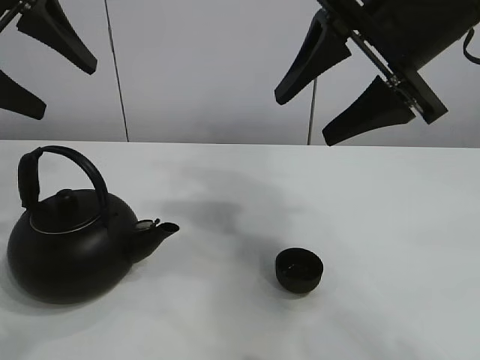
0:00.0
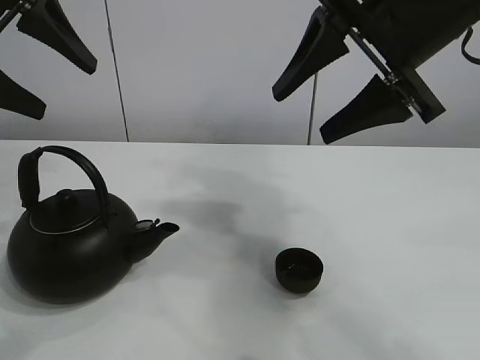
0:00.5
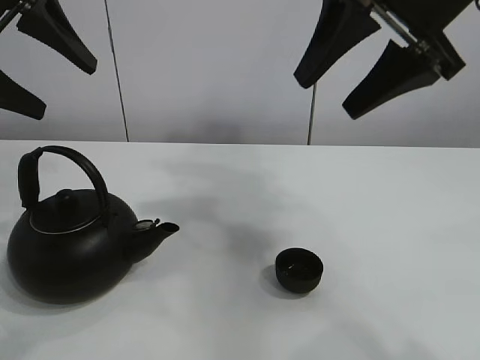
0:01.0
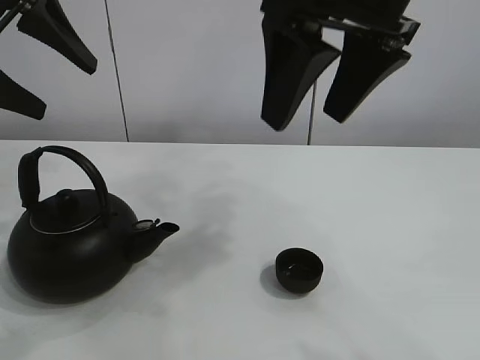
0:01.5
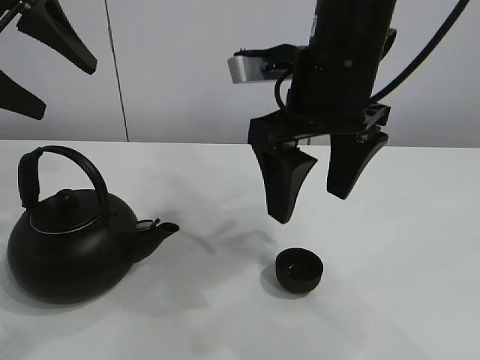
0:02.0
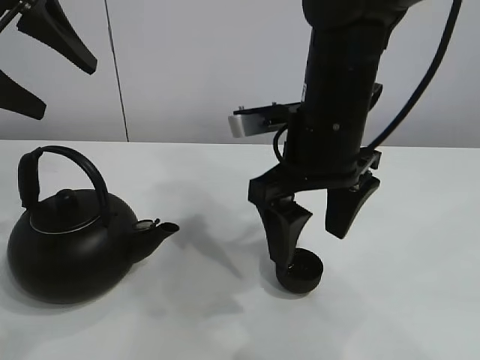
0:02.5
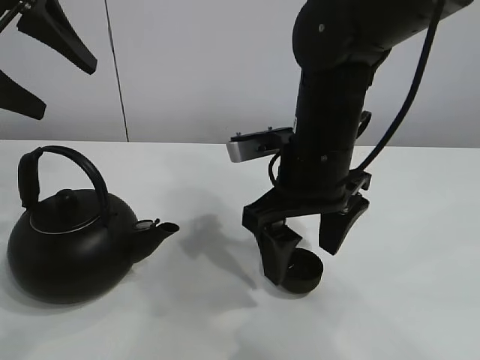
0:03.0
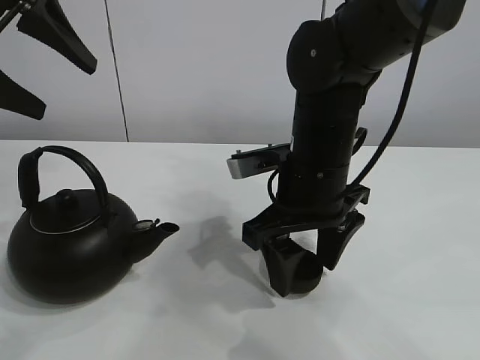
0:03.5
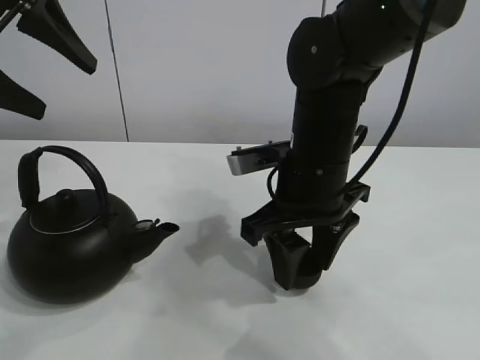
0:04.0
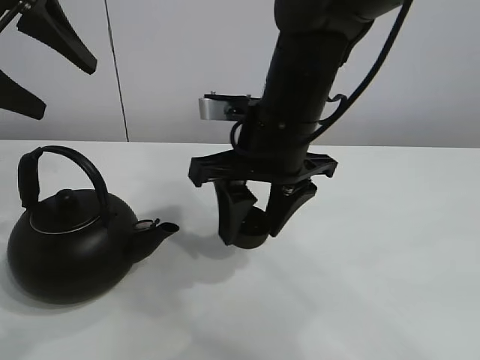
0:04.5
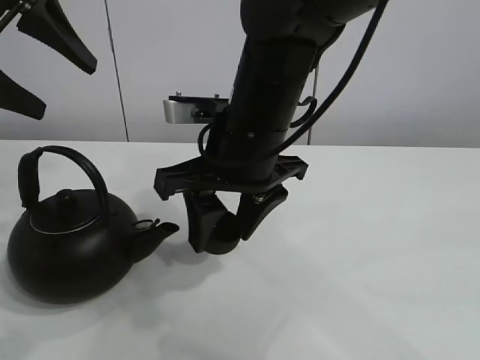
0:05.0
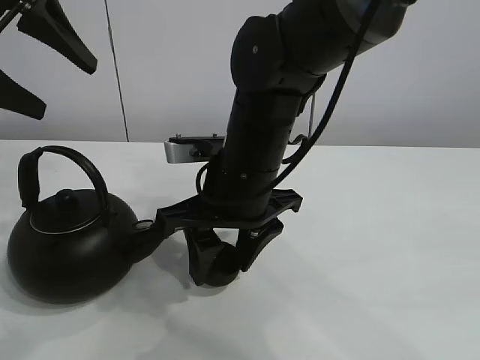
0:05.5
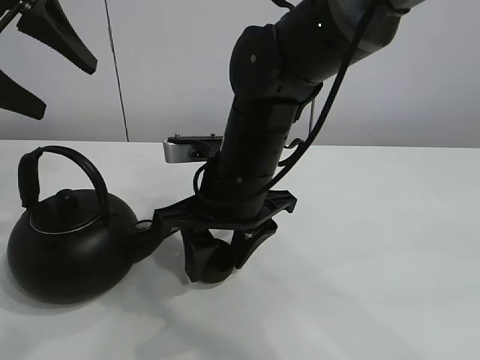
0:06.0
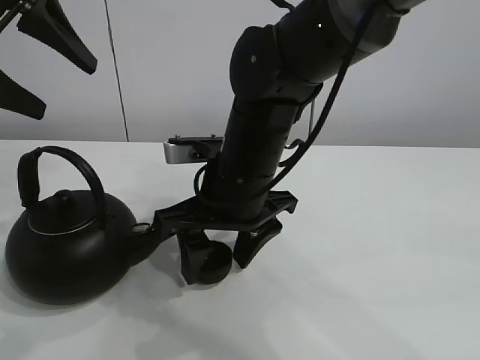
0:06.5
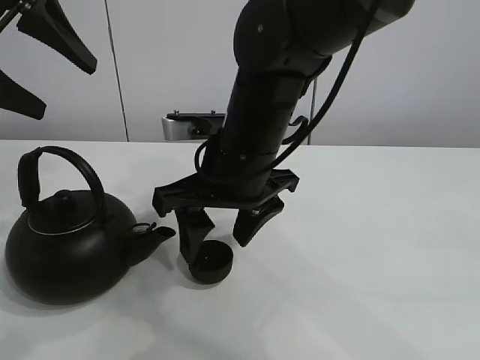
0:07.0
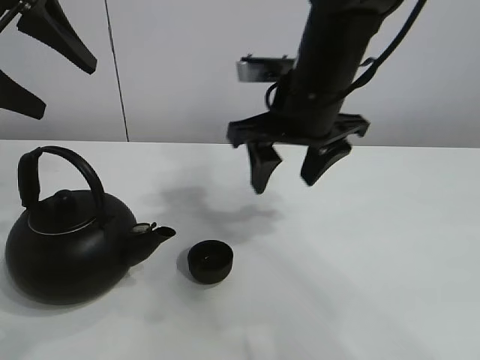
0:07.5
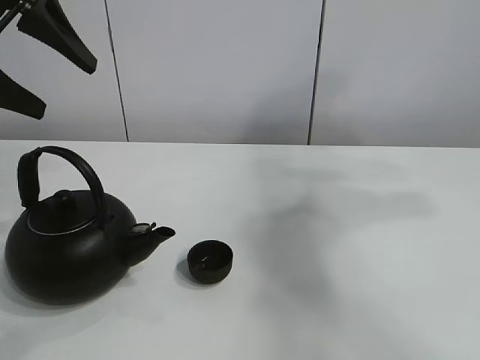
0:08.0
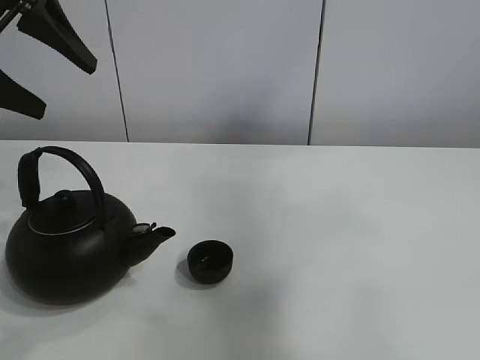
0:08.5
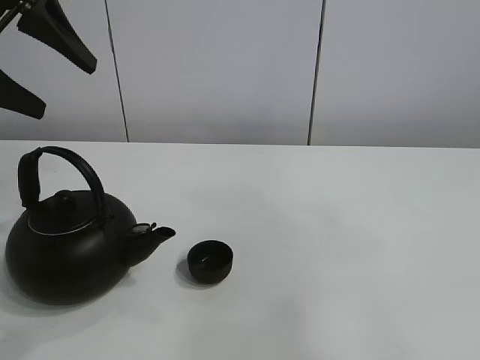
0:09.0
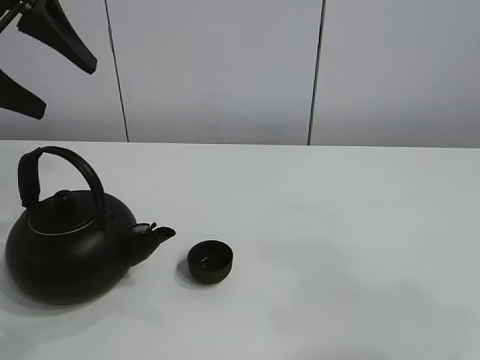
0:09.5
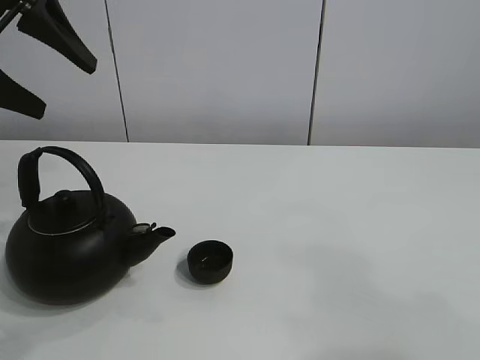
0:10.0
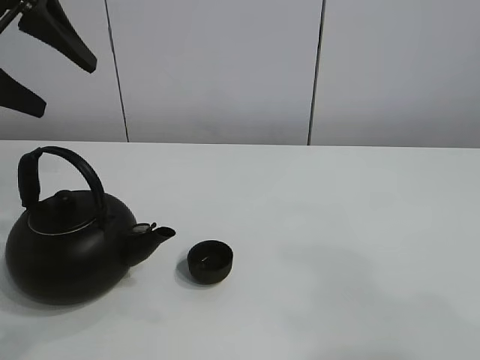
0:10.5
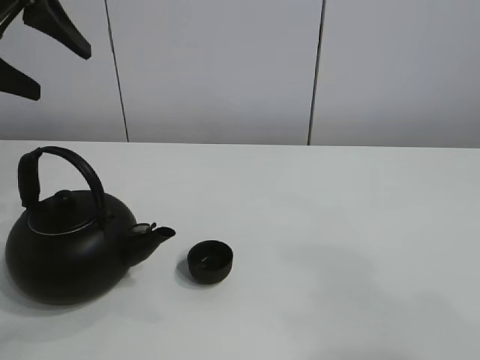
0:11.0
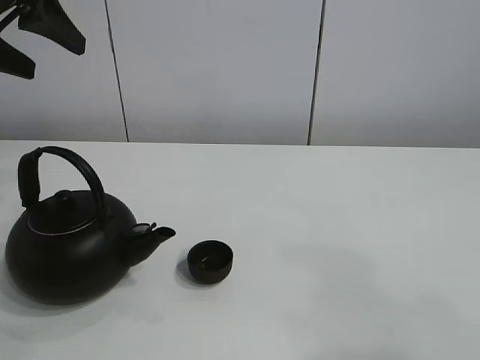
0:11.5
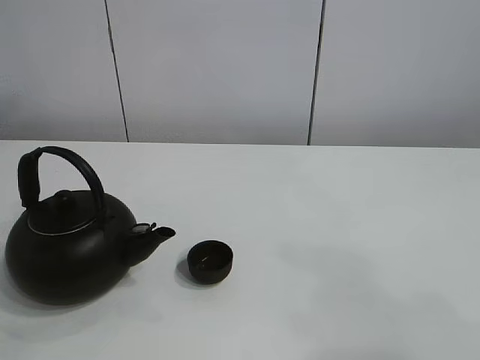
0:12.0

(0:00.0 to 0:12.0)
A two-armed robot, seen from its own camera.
Task of the whole recording: pour tea into the teacup.
Step, 0:00.0 - 0:04.0: Pick up the teacup with the right gripper.
Step, 0:04.5 - 0:06.5: Place the teacup in the center of view with the right gripper.
0:02.0 - 0:04.0: The right gripper travels downward by approximately 10 cm, and closes.
0:04.0 - 0:06.0: The right gripper shifts some 5 cm to the left.
0:06.0 - 0:08.0: The right gripper moves to the right and upward, about 35 cm, and opens its fingers.
0:08.0 - 0:10.0: The right gripper heads backward, covering roughly 35 cm.
0:10.0 - 0:12.0: The left gripper travels upward by some 10 cm.

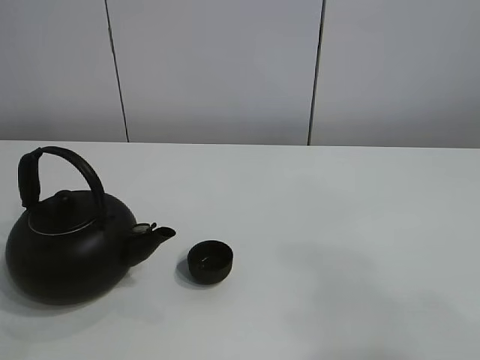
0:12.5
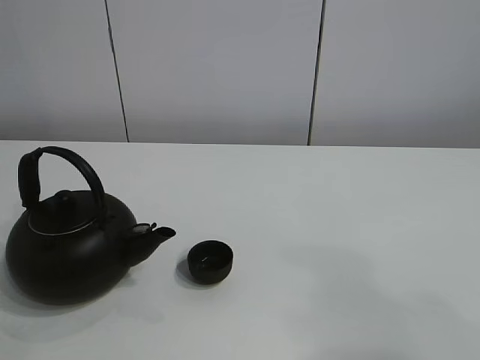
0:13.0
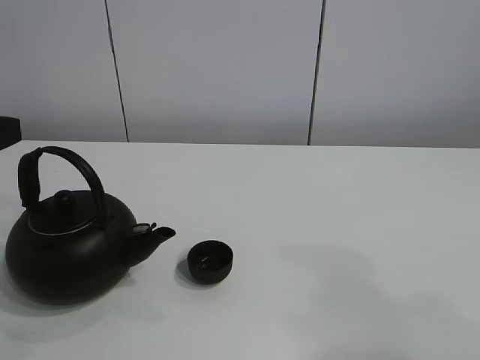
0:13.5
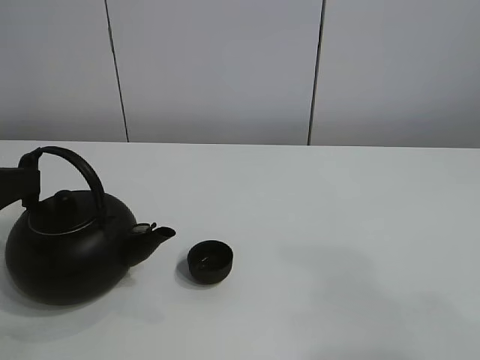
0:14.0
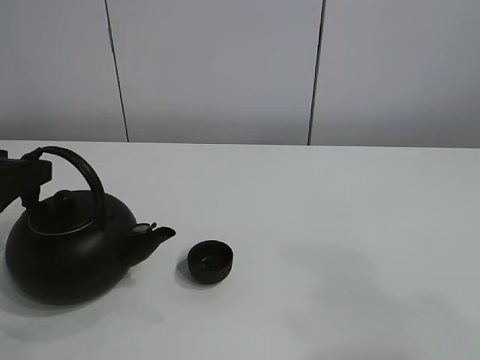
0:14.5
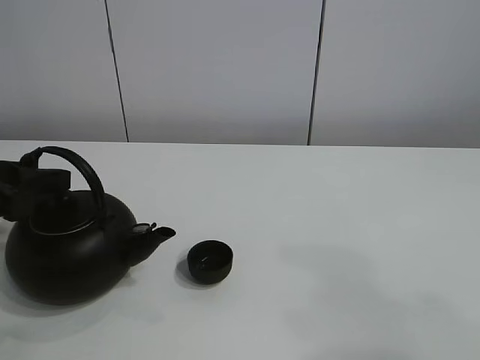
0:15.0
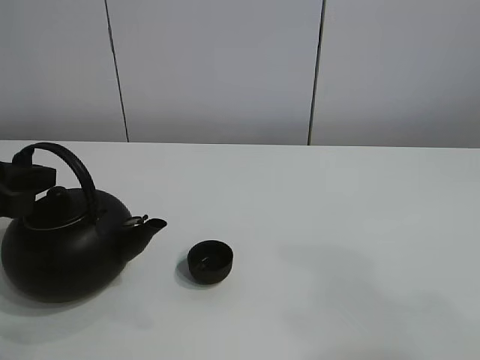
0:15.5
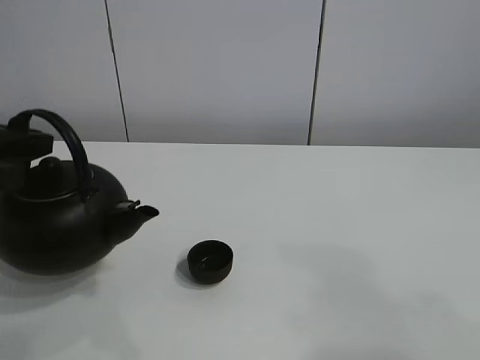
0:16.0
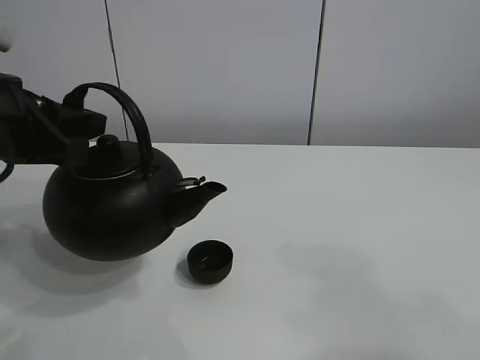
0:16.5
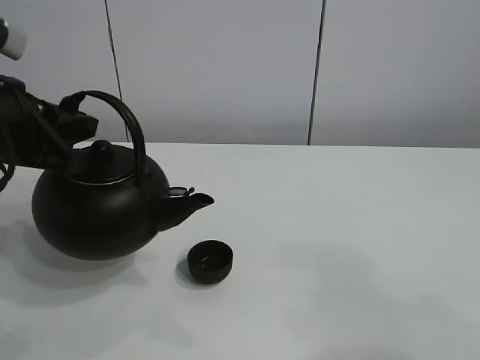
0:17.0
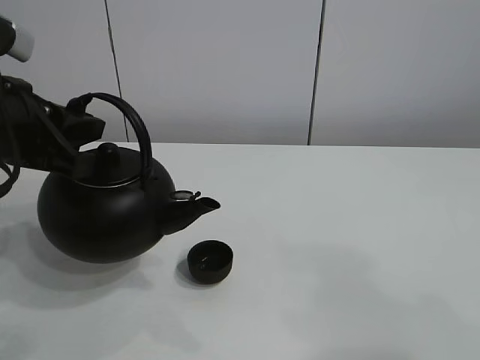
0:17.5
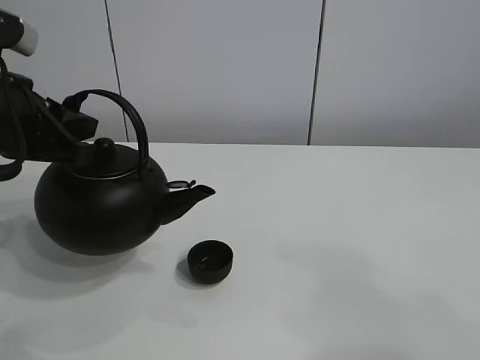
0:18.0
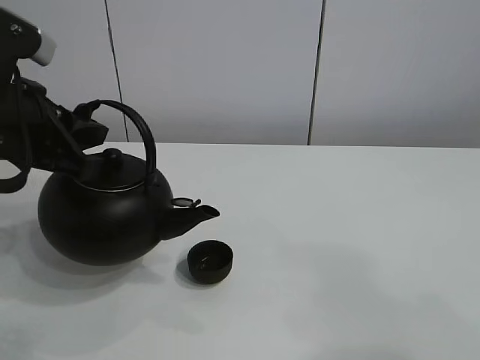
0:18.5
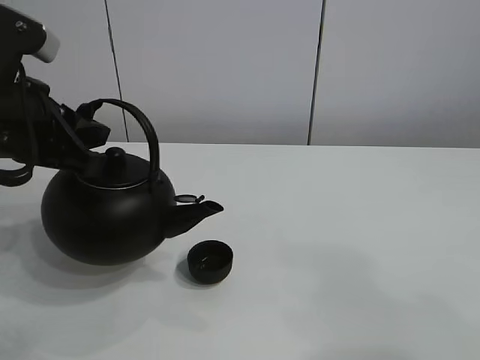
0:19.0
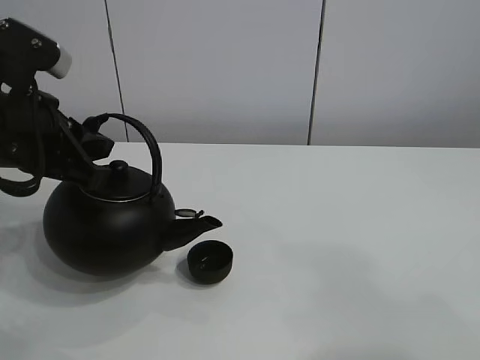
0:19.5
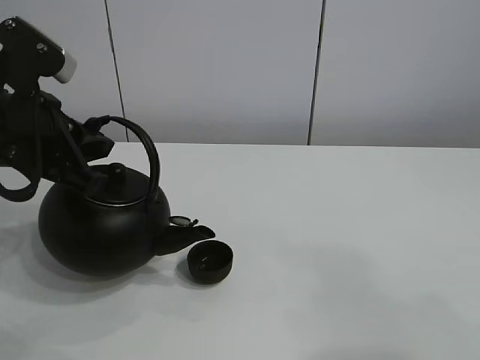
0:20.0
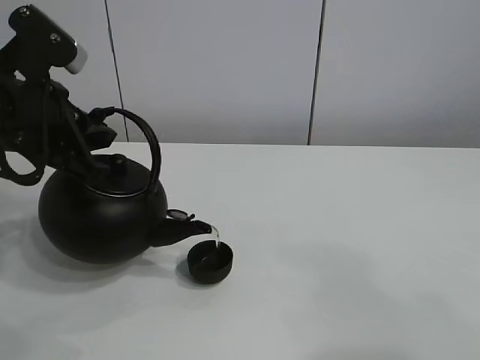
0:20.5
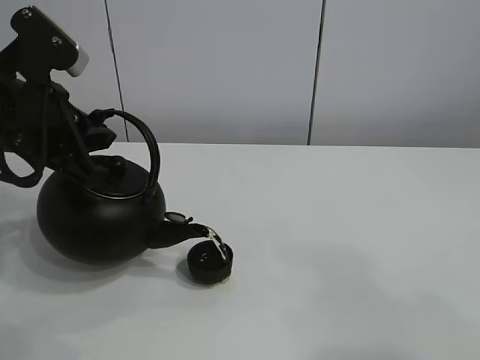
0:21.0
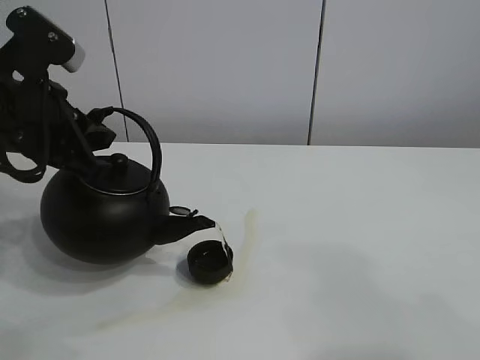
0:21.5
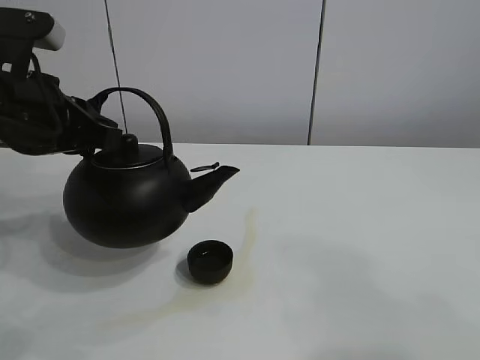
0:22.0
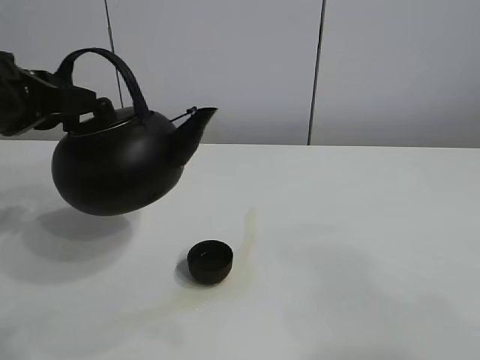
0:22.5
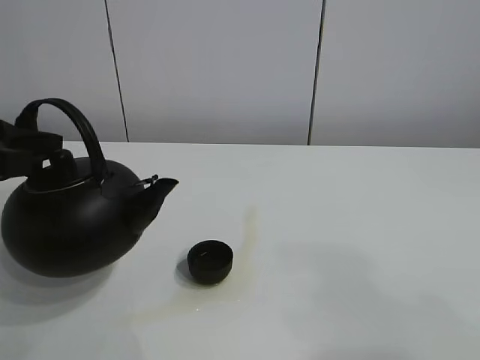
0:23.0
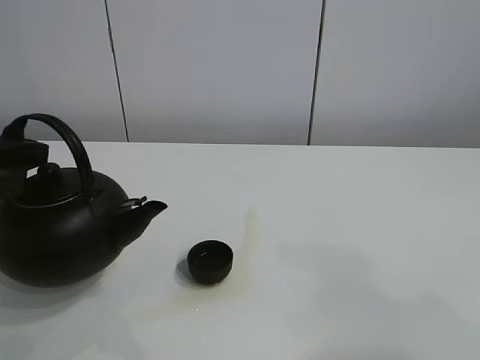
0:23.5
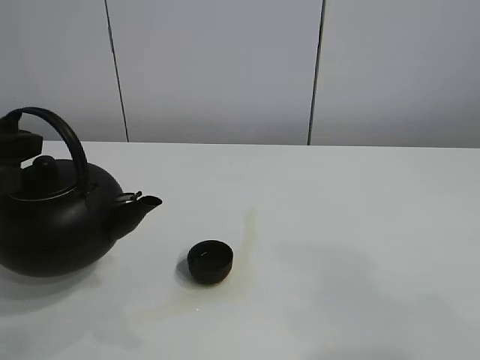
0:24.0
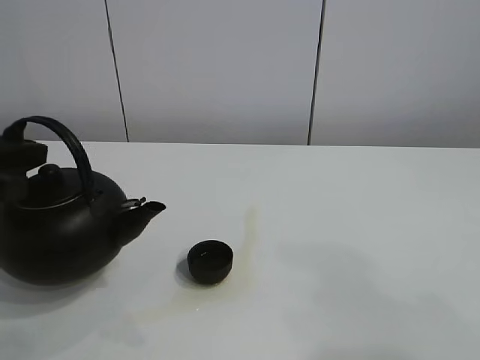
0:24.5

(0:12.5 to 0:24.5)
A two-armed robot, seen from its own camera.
Task of the whole recording: pour tea into the teacup.
Step, 0:12.5 - 0:15.5: Pick up the teapot with the left gripper.
Step, 0:16.0 - 0:21.5: Pour tea into the teacup with the left gripper.
0:12.5 - 0:14.5: The left gripper is displaced downward by some 30 cm.
0:14.5 - 0:16.5: The left gripper goes about 10 cm to the right and upward, and closes up.
0:16.5 - 0:18.5: The grippers make only small movements.
0:18.5 - 0:20.5: The grippers make only small movements.
0:22.5 - 0:24.5: The left gripper moves roughly 5 cm.

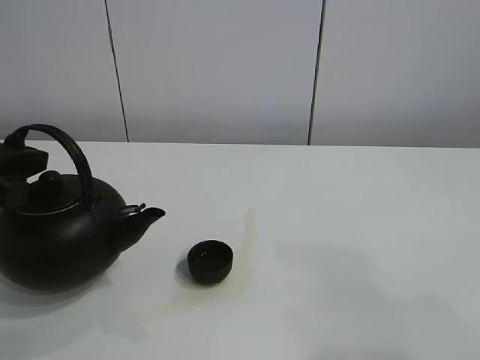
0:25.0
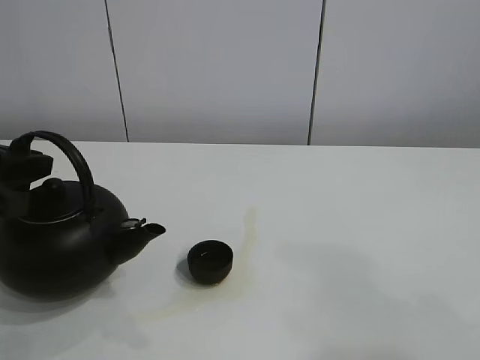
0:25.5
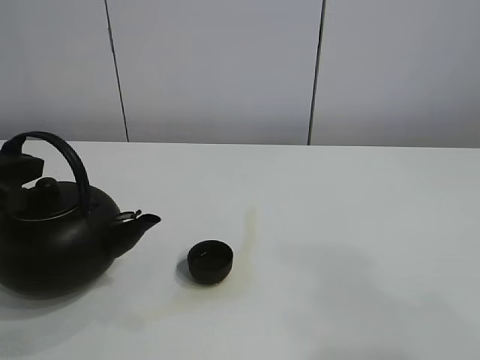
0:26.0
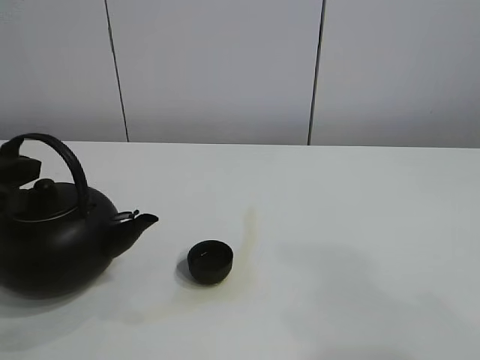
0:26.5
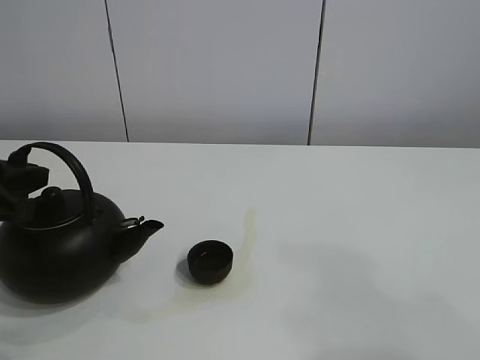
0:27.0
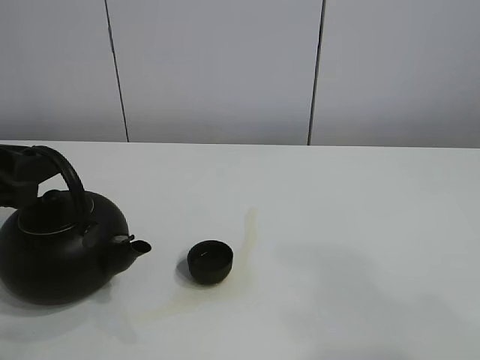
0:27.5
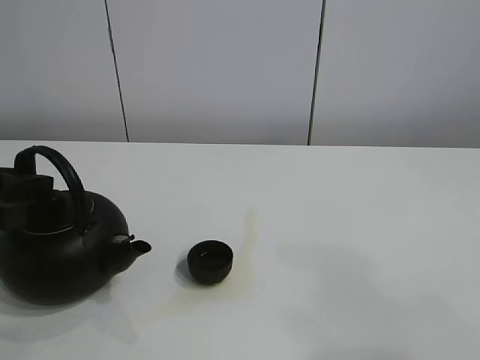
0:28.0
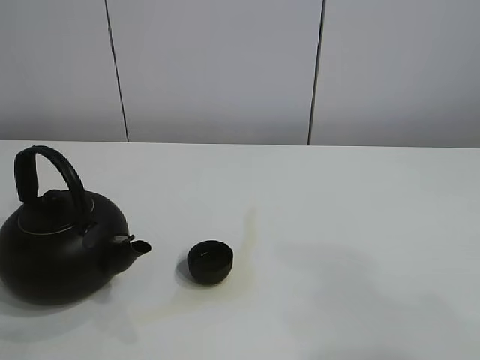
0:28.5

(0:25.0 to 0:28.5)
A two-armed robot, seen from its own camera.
Task of the whole recording: pour tea into the teacup.
0:25.0 - 0:27.0: The grippers move only a little.
0:27.0 - 0:28.5: The left gripper ends up roughly 5 cm from where it was, and opens its fingers.
